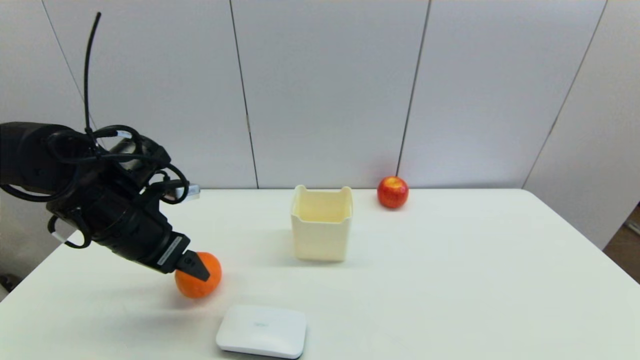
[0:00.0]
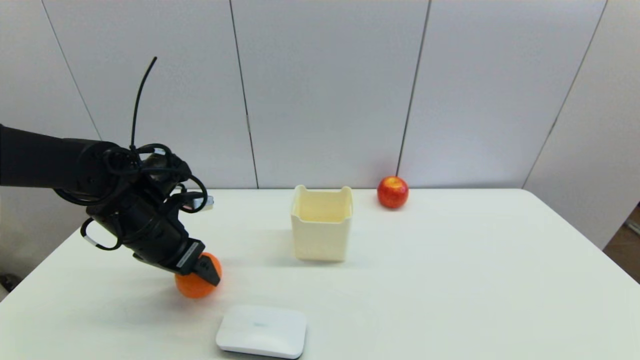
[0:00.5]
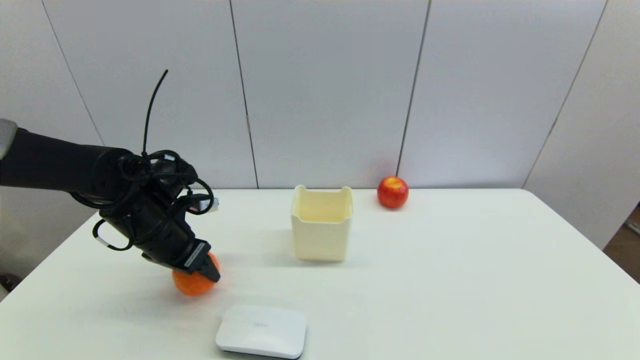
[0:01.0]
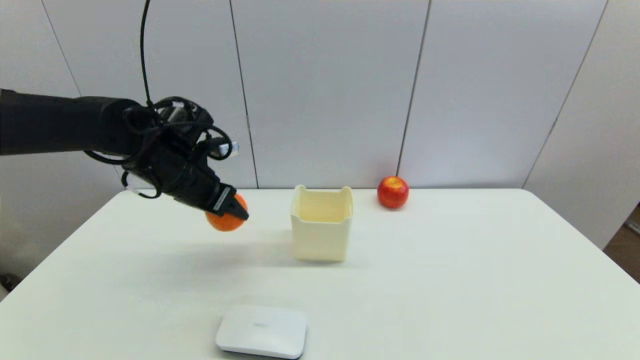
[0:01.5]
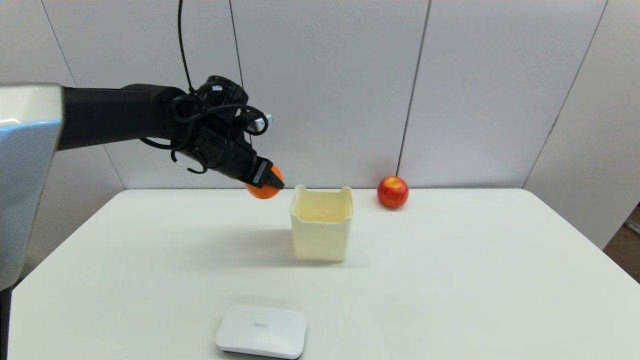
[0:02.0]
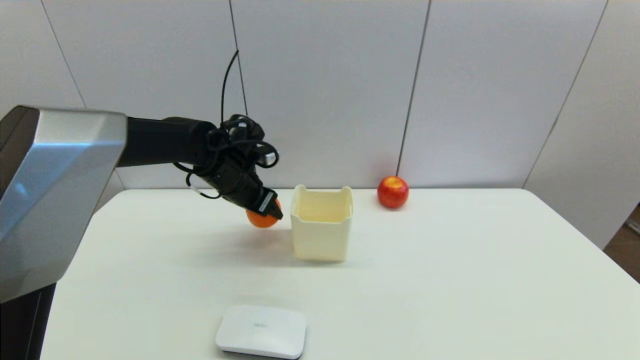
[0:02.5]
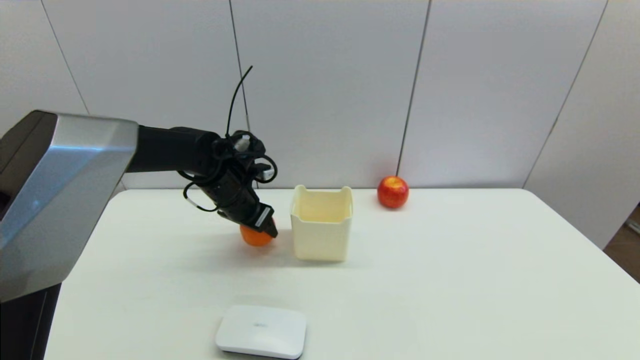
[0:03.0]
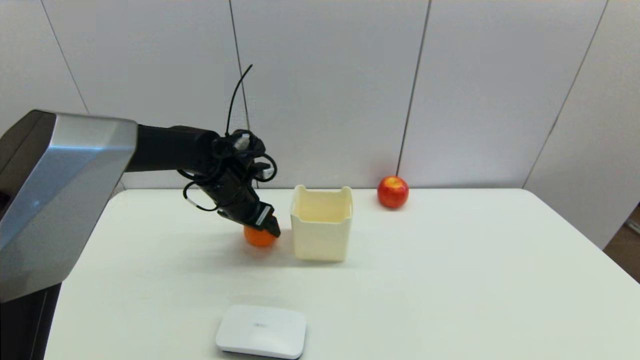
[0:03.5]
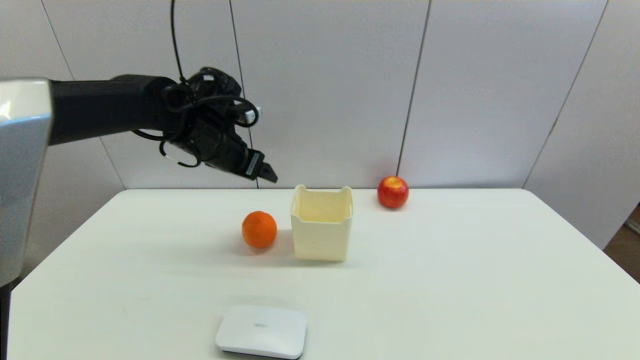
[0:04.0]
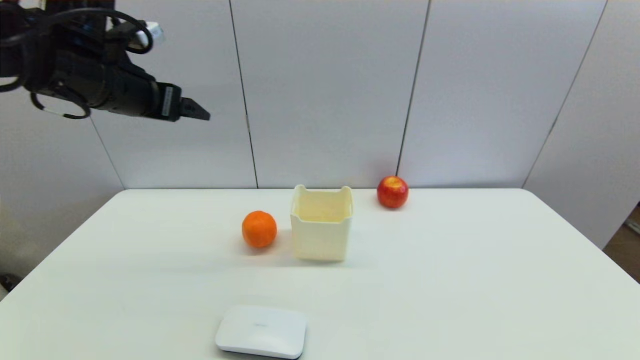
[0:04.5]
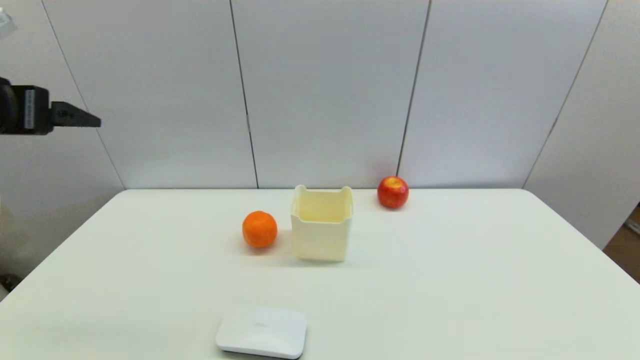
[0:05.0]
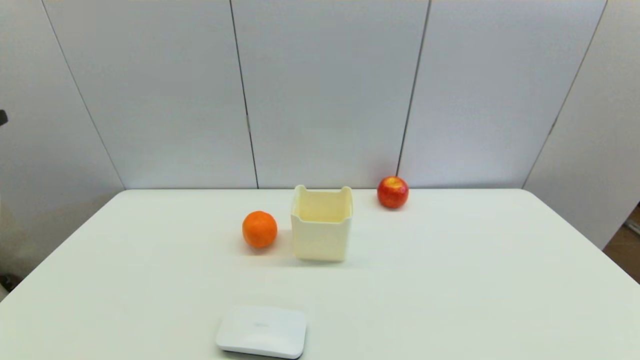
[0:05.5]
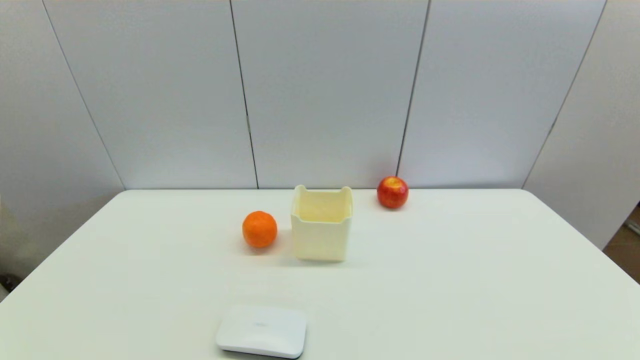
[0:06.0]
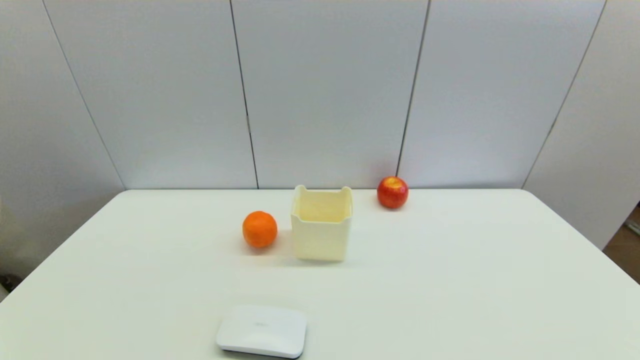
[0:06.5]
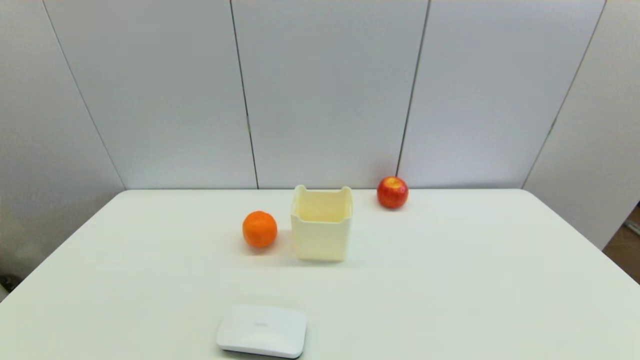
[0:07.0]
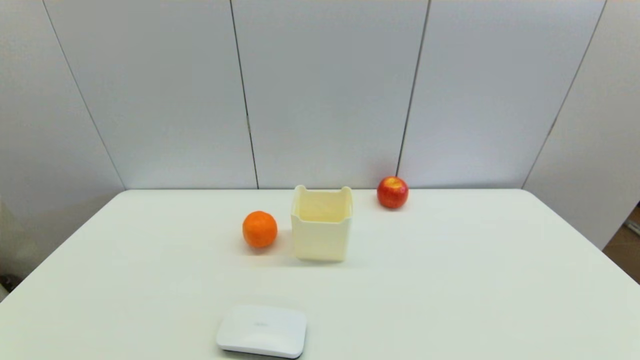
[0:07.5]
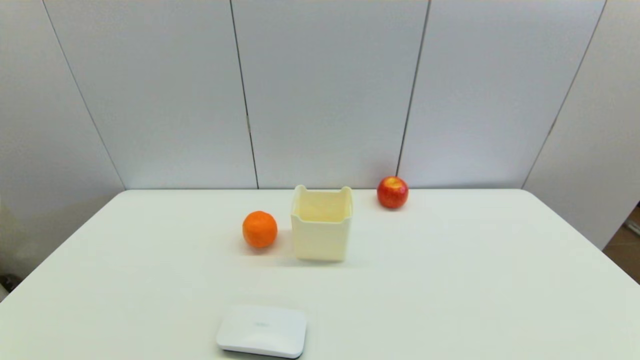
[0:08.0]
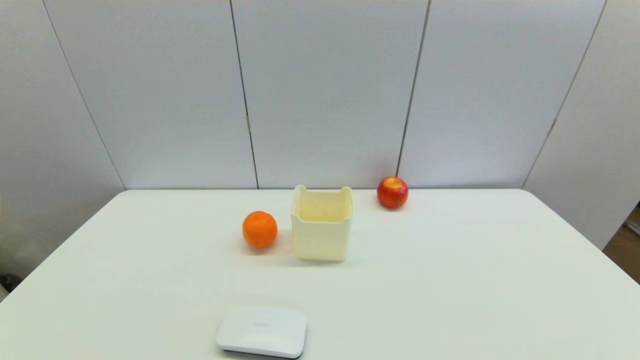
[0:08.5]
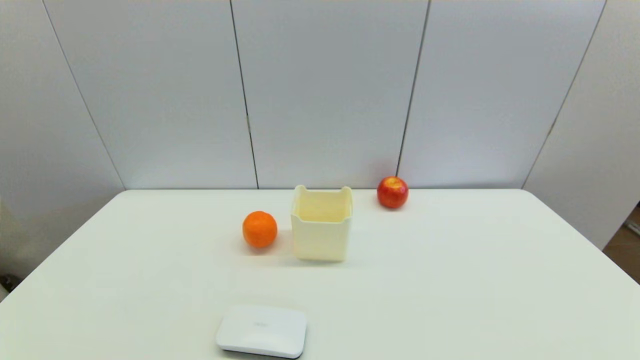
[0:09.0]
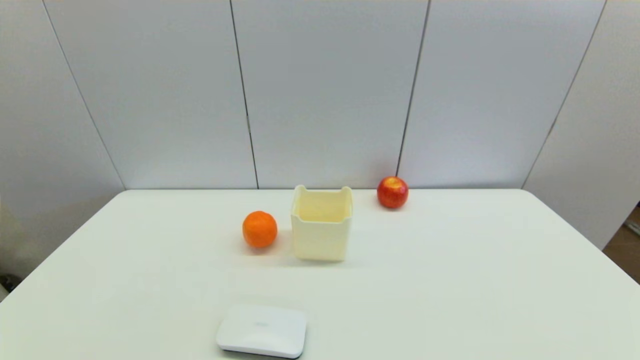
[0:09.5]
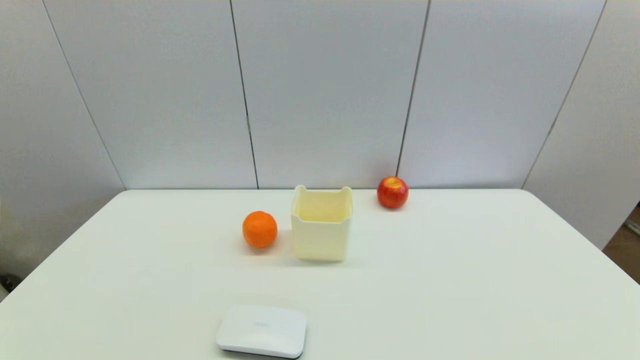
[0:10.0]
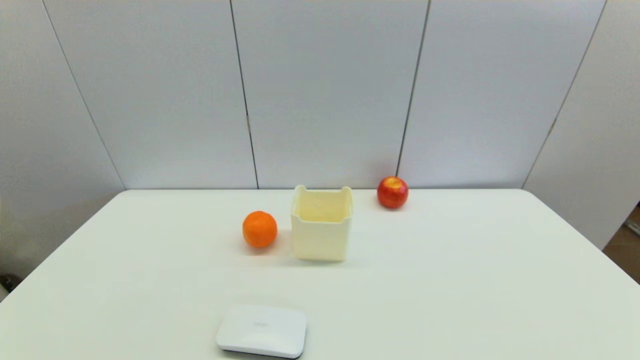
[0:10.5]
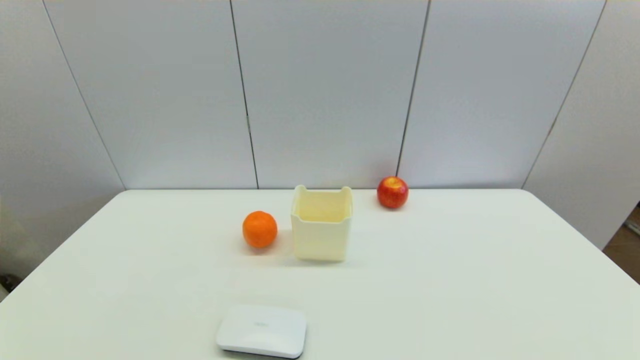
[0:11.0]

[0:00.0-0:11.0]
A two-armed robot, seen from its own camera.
Step, 0:01.5 to 0:03.5: Place the orange on the table with left gripper.
0:00.0 to 0:02.0: The left gripper is displaced forward and to the right by approximately 15 cm, and closes up.
0:02.0 to 0:03.5: The left gripper shifts some 5 cm downward, and opens its fingers.
0:03.5 to 0:05.5: The left gripper travels backward, to the left and upward by roughly 40 cm.
0:07.5 to 0:11.0: The two grippers keep their place.

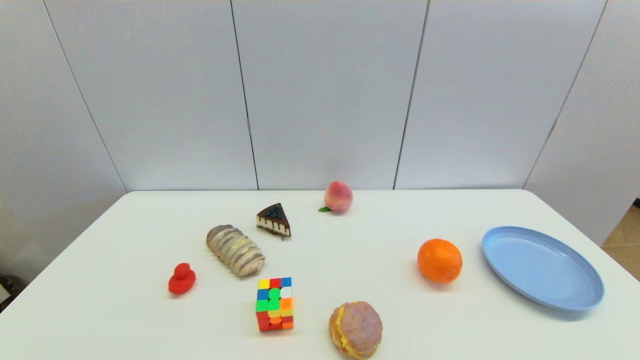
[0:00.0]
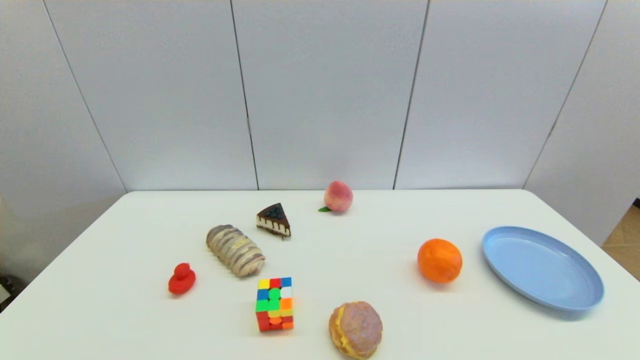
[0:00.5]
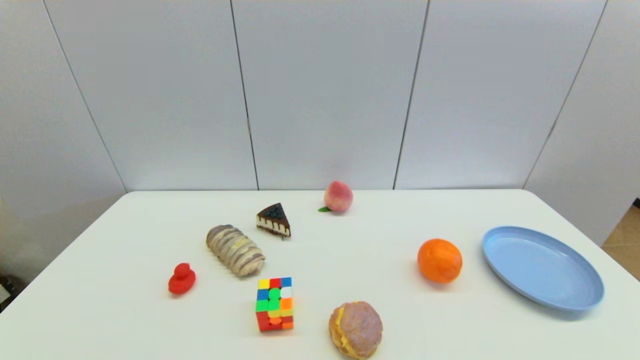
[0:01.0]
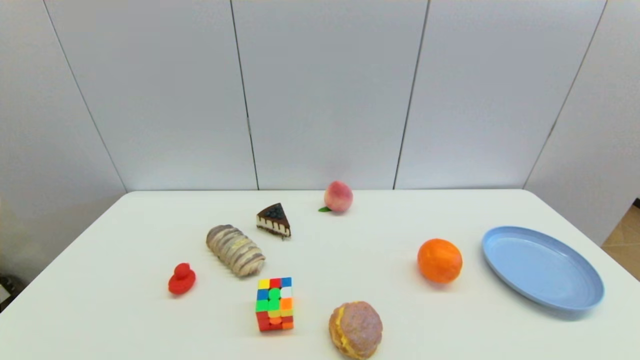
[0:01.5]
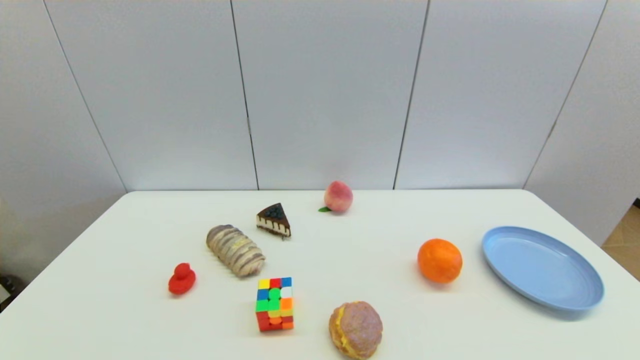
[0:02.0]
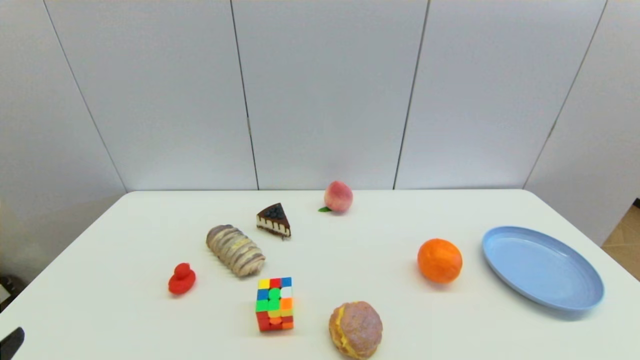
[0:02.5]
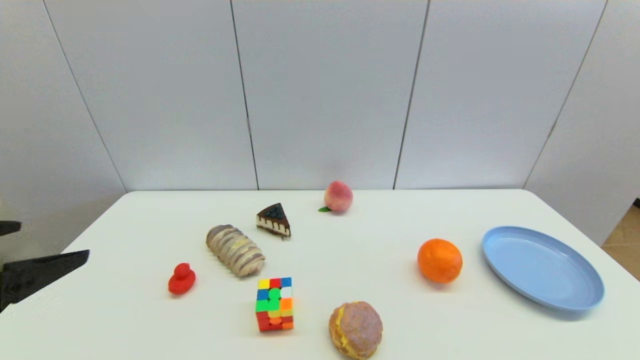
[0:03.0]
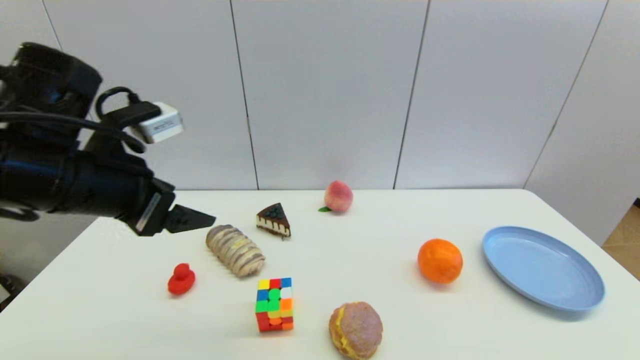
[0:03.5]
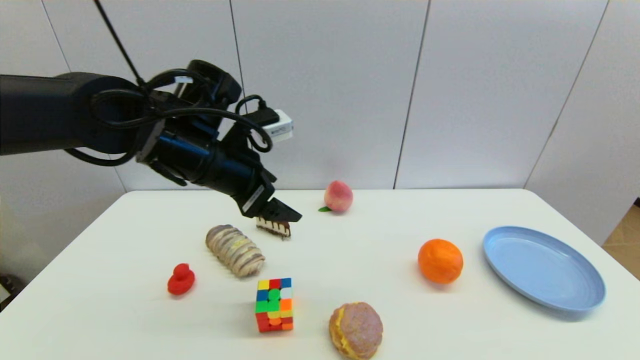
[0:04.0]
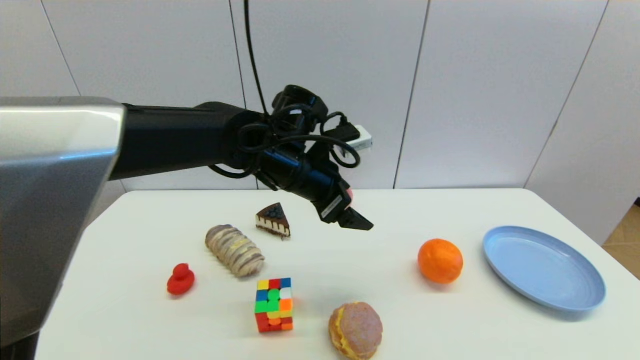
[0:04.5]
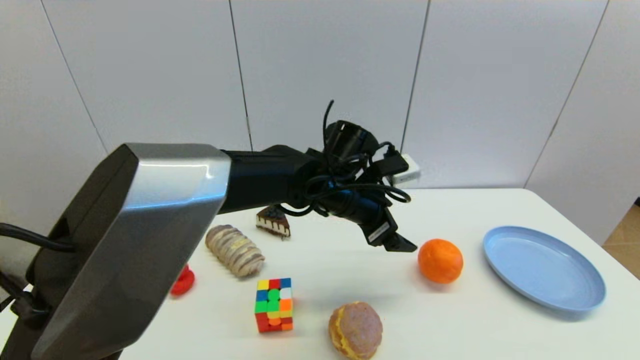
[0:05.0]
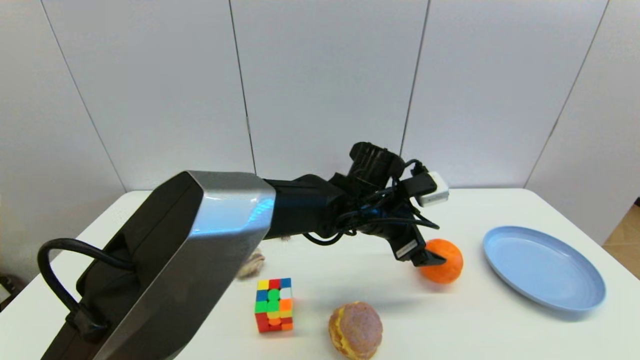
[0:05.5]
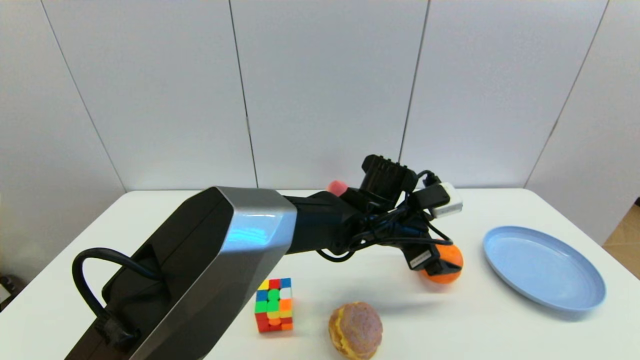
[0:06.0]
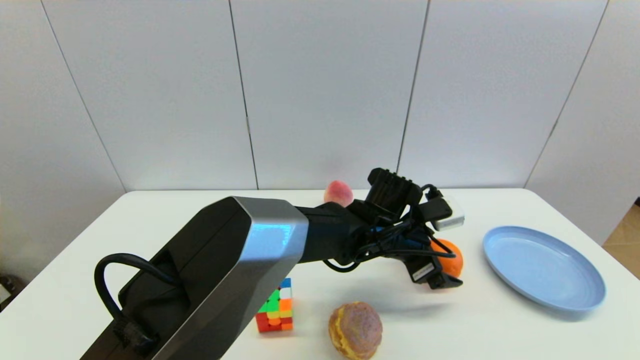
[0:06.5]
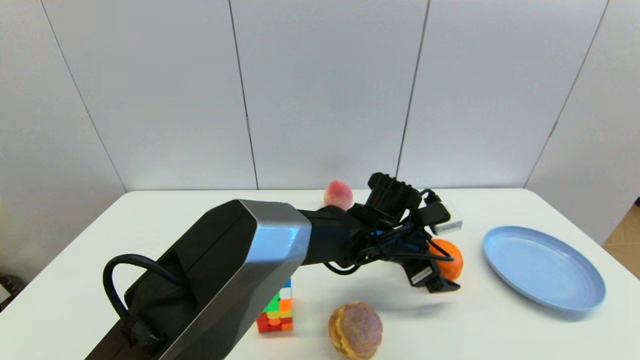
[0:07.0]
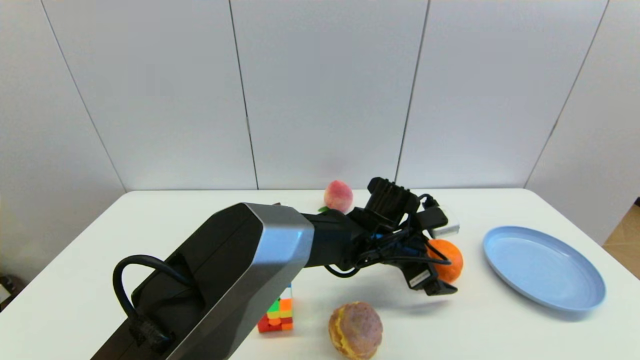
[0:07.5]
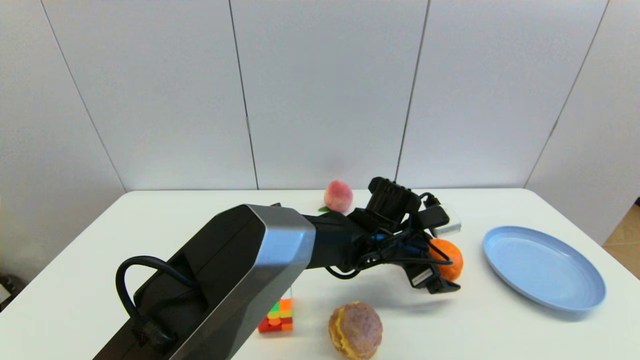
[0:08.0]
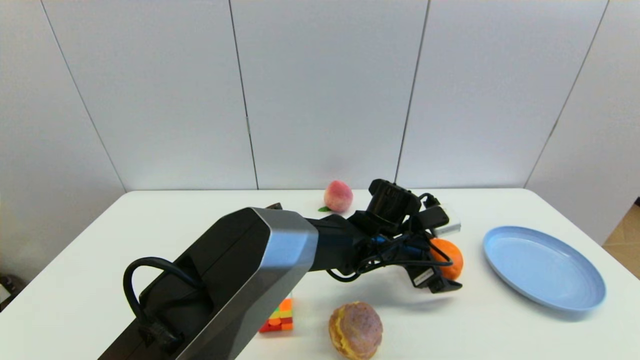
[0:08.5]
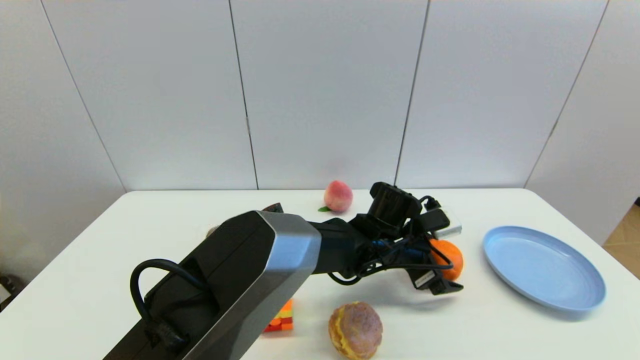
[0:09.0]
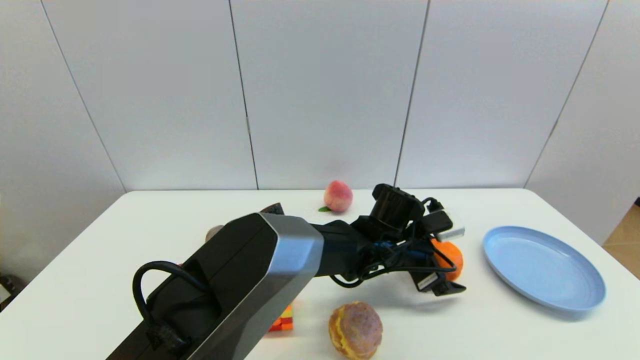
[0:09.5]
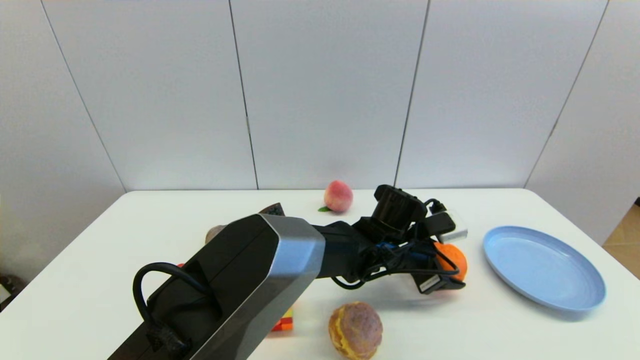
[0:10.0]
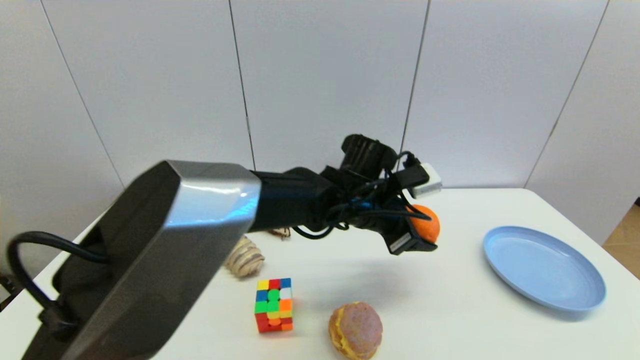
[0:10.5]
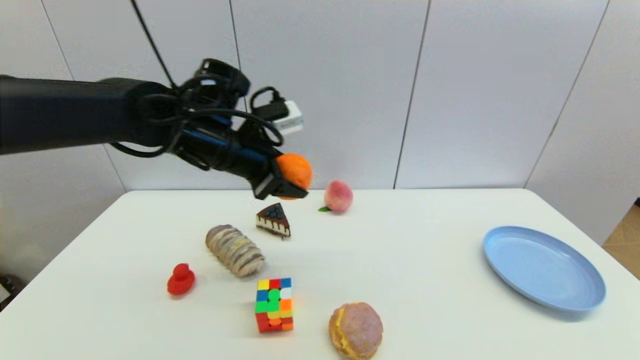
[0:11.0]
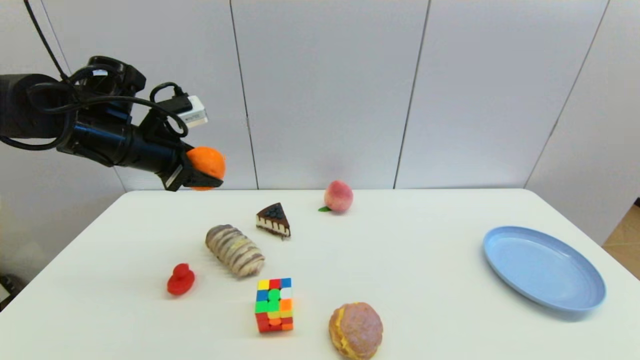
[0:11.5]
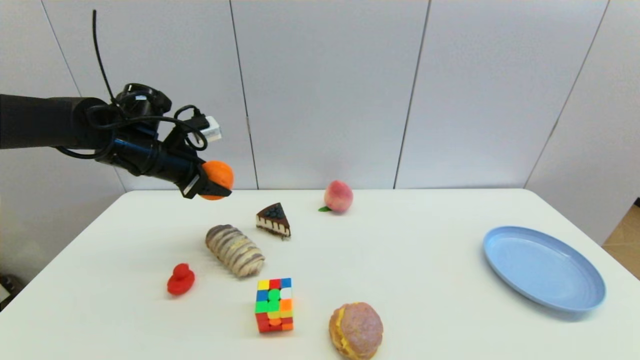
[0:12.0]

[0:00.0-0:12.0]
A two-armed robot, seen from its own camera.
Step, 0:02.5 to 0:09.5: Grasp the orange with left gripper.
0:00.0 to 0:02.0: Both grippers stay put.
0:02.0 to 0:04.0: The left gripper shifts some 40 cm forward, upward and to the right.
0:04.0 to 0:06.0: The left gripper moves to the right and downward, about 25 cm.
0:06.0 to 0:08.0: The grippers stay close to where they were, moving slightly.
0:08.0 to 0:10.0: The left gripper closes up.
0:10.0 to 0:12.0: The left gripper goes some 40 cm to the left.
